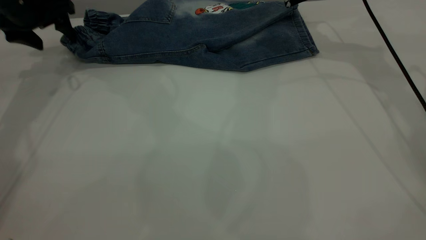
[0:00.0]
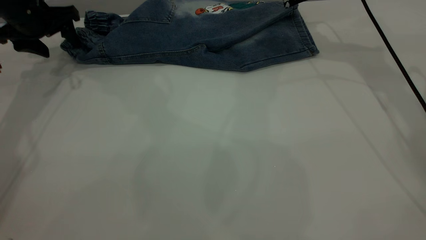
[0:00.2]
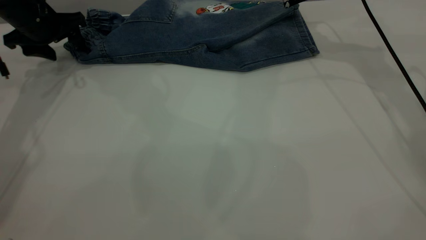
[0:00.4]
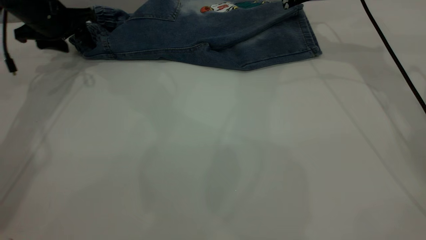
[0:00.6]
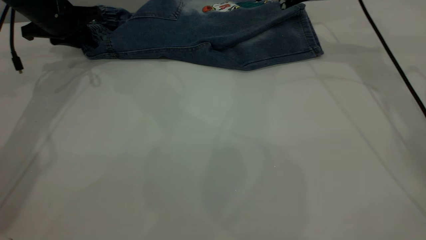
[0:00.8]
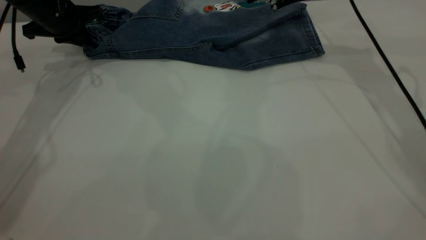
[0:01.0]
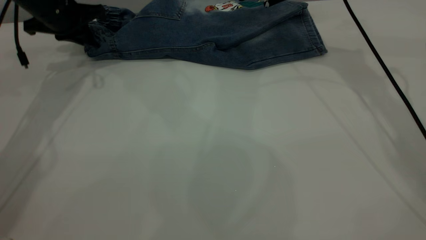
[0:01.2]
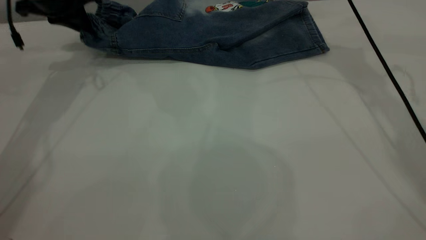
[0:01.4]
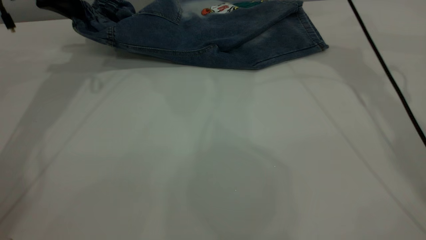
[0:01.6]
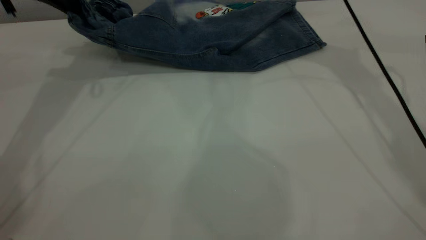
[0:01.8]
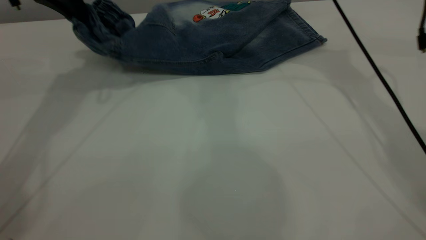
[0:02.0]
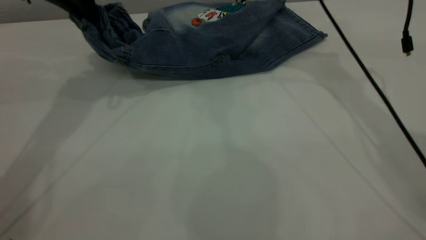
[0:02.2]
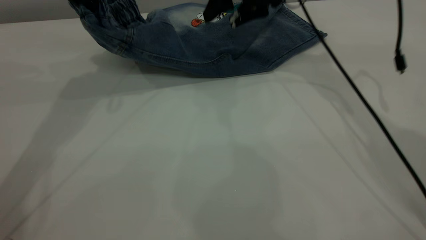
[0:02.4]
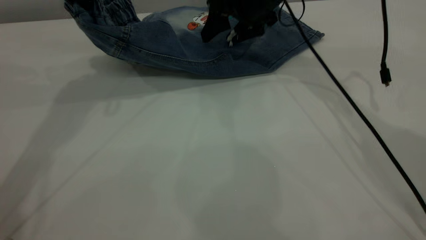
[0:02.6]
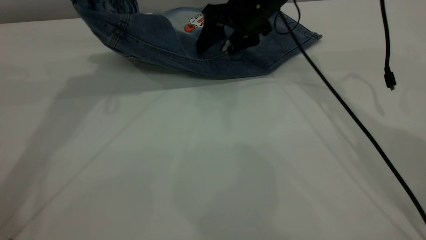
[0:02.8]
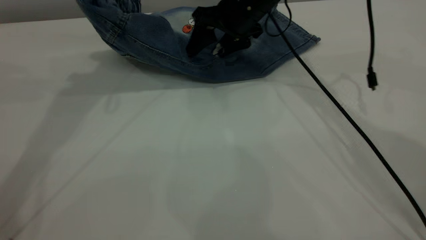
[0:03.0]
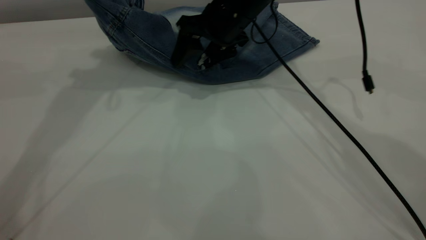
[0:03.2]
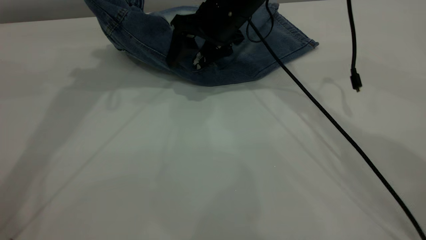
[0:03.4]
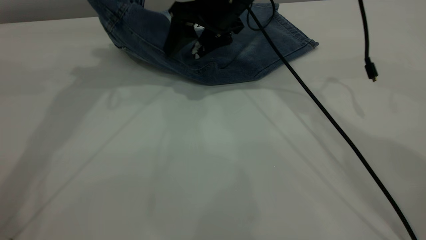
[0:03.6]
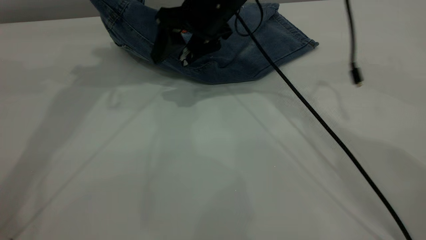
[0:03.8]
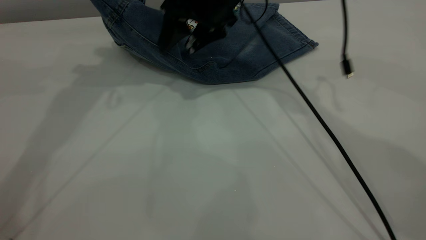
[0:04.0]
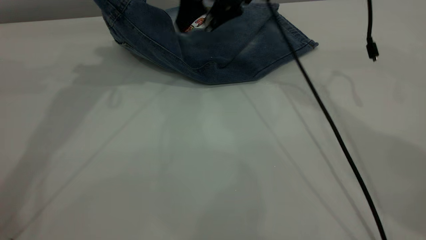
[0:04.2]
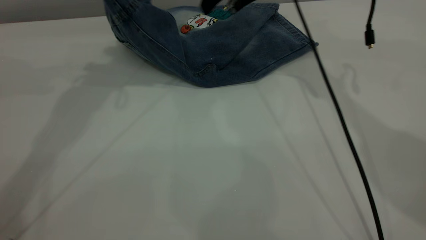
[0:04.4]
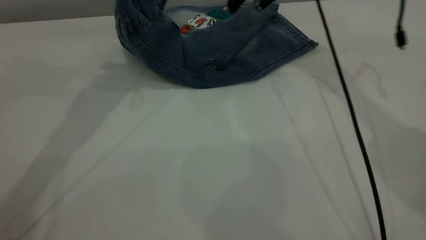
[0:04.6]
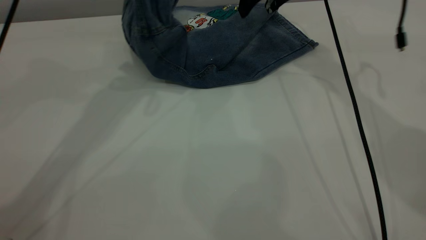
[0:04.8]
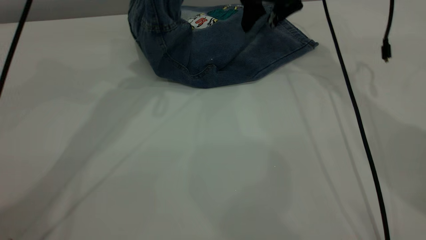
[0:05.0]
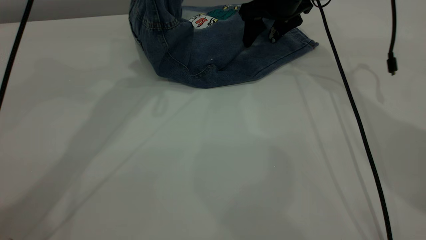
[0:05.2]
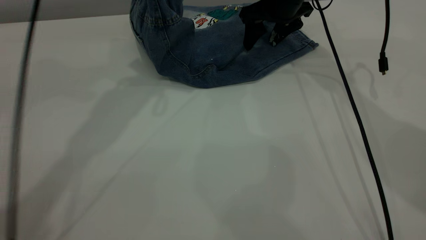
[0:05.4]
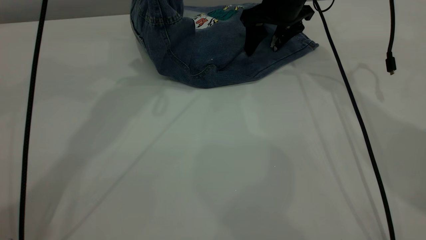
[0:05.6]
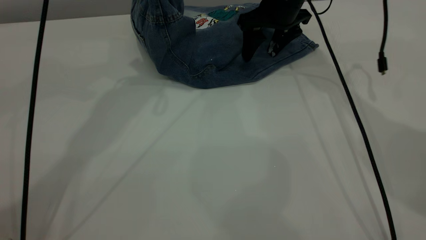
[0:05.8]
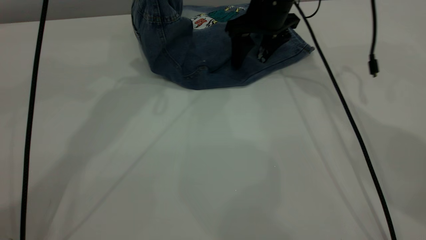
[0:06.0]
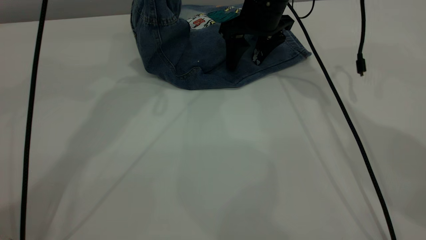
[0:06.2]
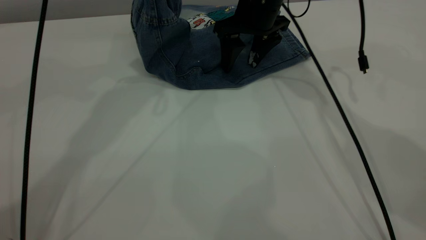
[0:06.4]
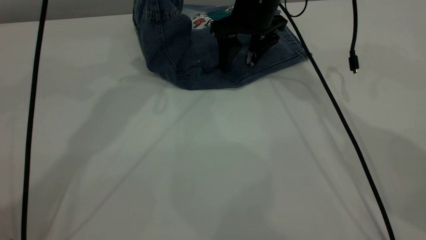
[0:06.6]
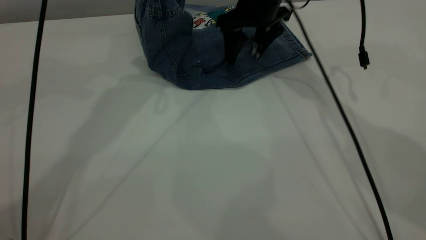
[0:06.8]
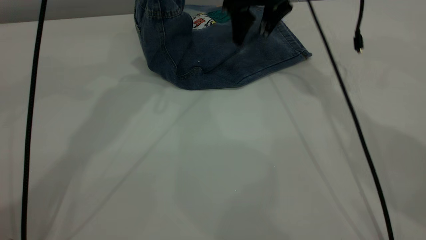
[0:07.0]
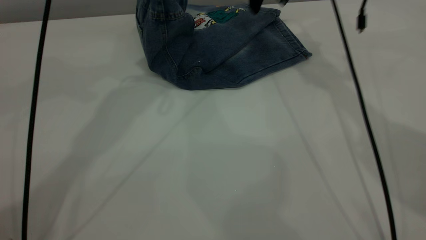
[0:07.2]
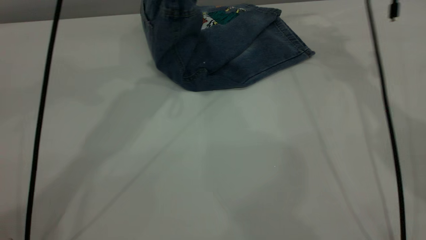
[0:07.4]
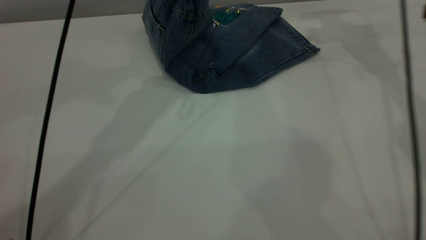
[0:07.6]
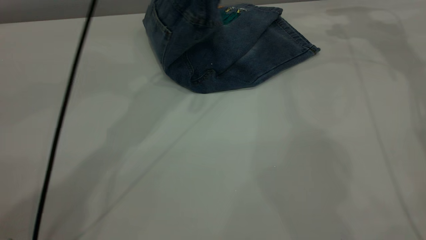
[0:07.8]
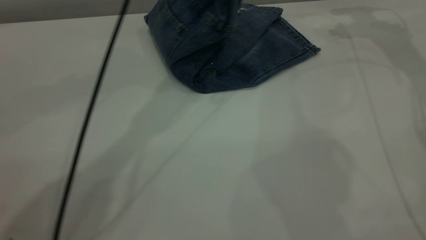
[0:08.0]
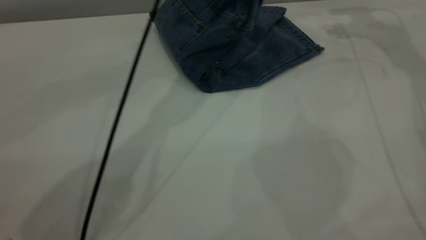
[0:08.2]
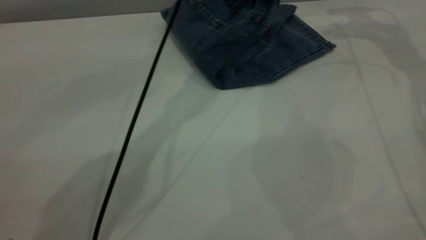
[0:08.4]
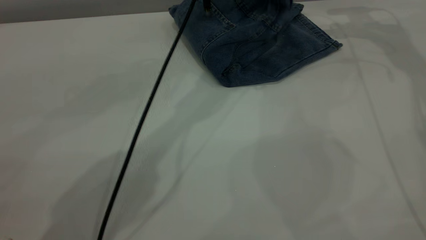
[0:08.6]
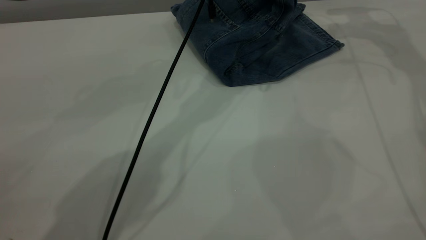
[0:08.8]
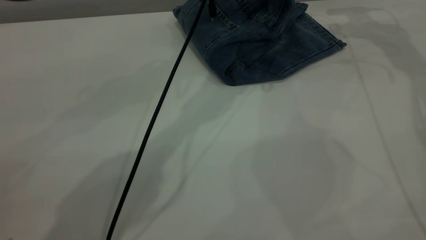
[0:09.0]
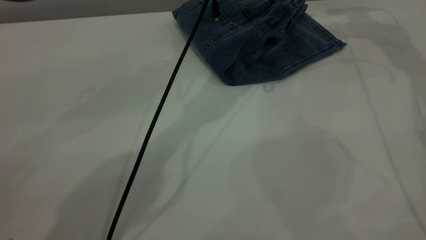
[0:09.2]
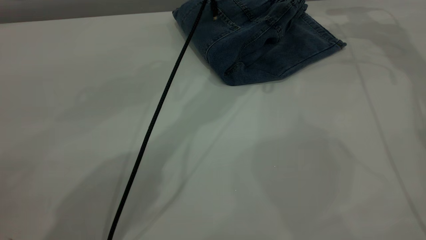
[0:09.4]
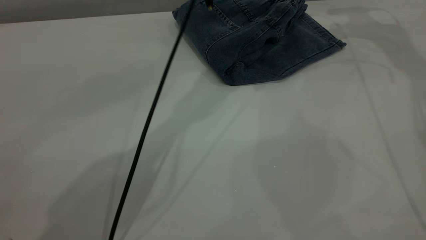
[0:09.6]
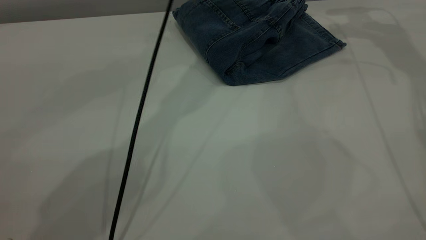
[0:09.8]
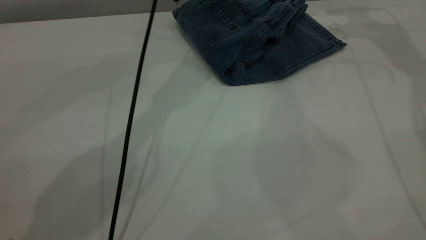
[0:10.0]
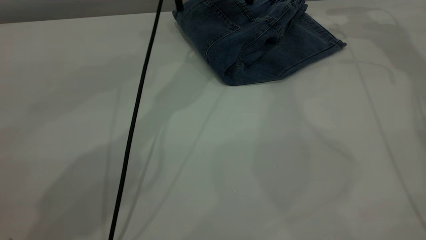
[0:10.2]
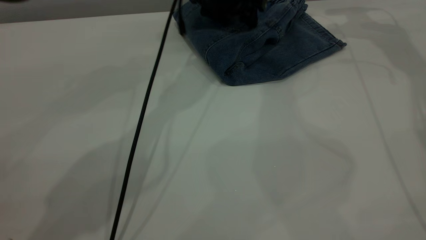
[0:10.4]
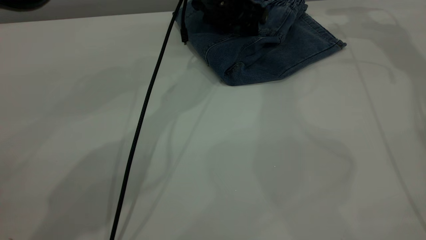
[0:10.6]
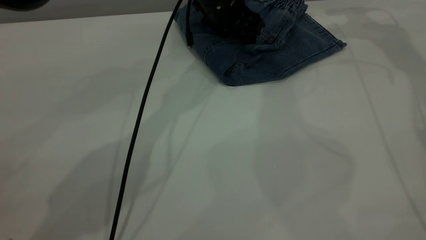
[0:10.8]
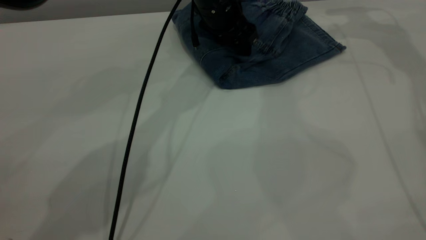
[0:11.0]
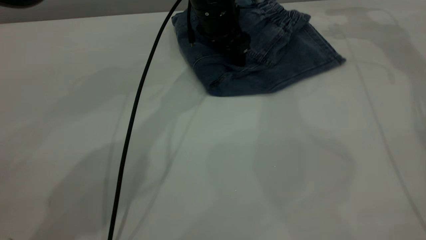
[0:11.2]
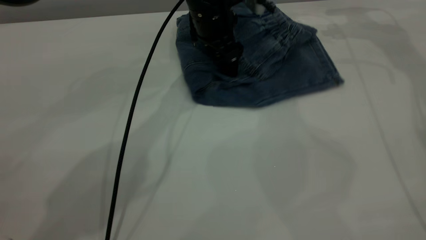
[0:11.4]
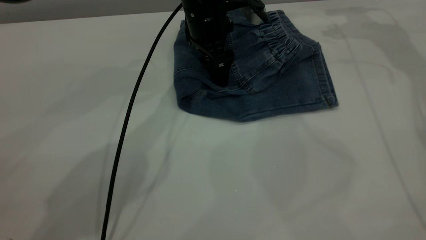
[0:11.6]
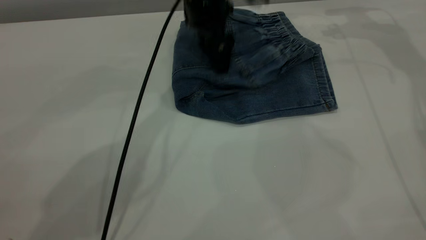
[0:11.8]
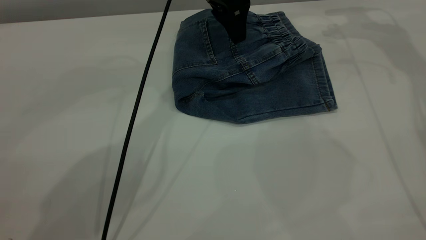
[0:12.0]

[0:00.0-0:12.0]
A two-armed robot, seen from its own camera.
Step, 0:00.0 to 0:09.8: Fold the pants from left to right.
0:00.0 to 0:01.6: The left gripper moves upward and to the right, some 10 cm, and closes.
0:01.6 to 0:03.0: The right gripper moves to the left and downward, some 10 cm; the left gripper shifts some 10 cm upward and to the right.
0:03.0 to 0:04.4: The right gripper heads upward, covering roughly 5 cm.
0:04.4 to 0:06.0: The right gripper is displaced downward by roughly 5 cm. The left gripper goes approximately 5 cm to the right.
0:06.0 to 0:07.6: The right gripper moves to the right and upward, approximately 20 cm.
0:07.6 to 0:09.0: The left gripper moves to the right, downward and forward, approximately 20 cm, and opens its fingers.
0:09.0 to 0:10.4: The left gripper travels to the left by approximately 5 cm, and opens.
0:10.4 to 0:12.0: The left gripper moves upward, approximately 5 cm.

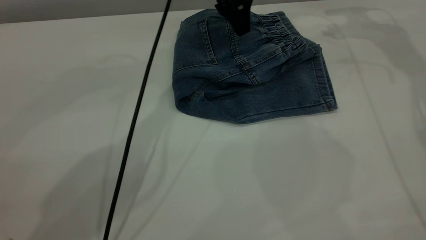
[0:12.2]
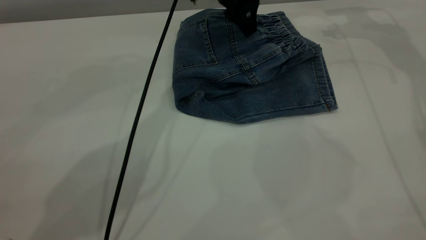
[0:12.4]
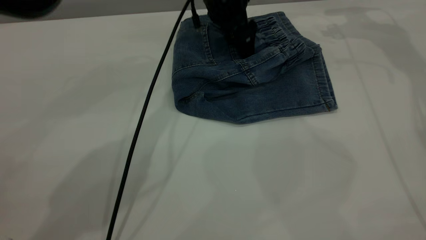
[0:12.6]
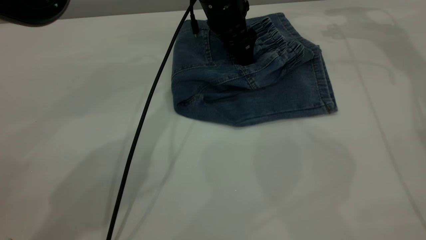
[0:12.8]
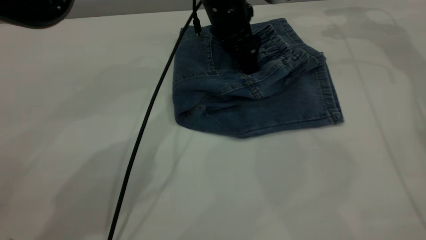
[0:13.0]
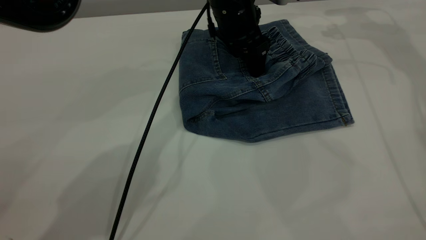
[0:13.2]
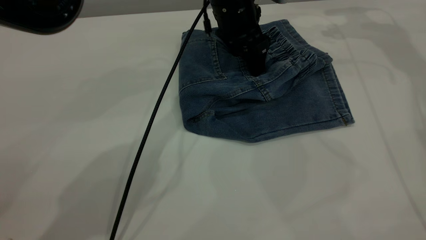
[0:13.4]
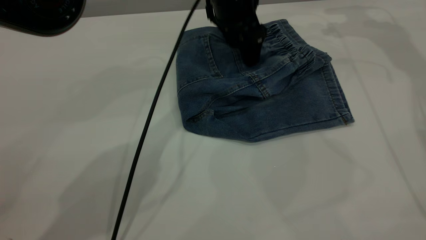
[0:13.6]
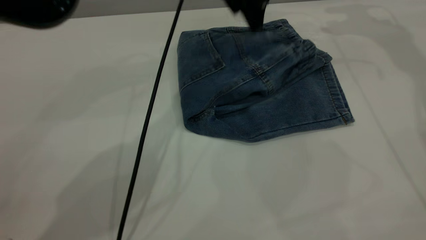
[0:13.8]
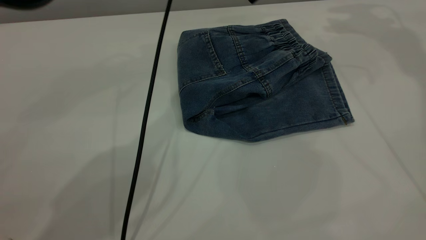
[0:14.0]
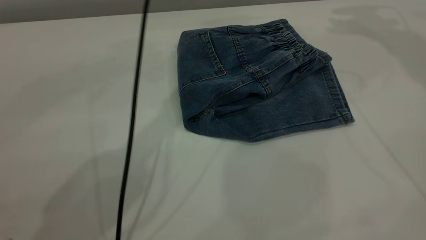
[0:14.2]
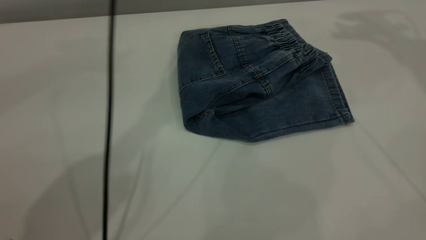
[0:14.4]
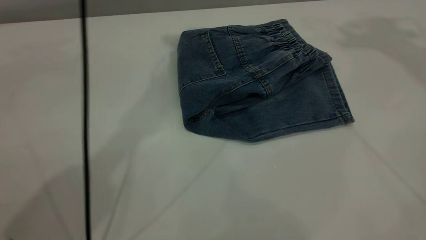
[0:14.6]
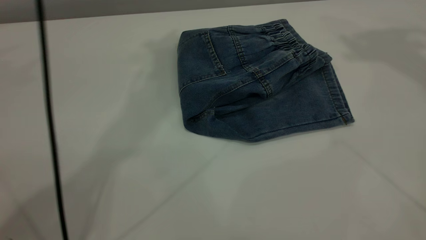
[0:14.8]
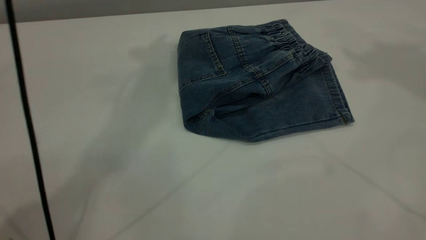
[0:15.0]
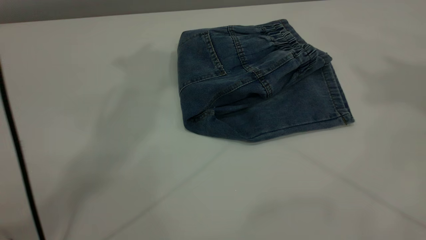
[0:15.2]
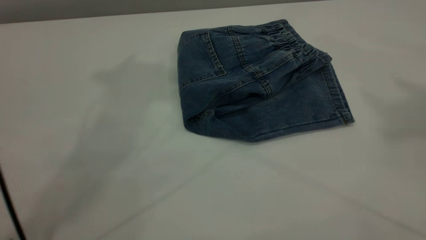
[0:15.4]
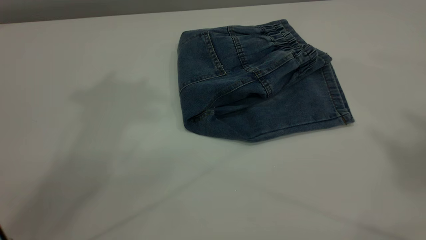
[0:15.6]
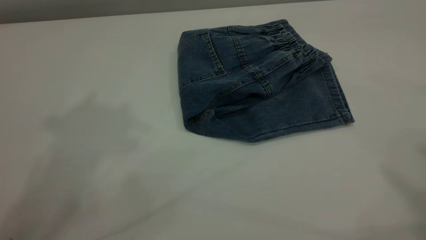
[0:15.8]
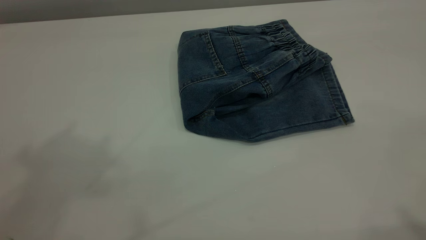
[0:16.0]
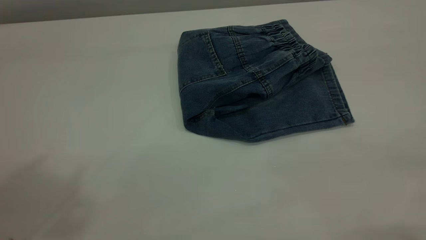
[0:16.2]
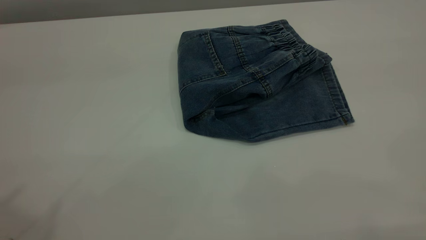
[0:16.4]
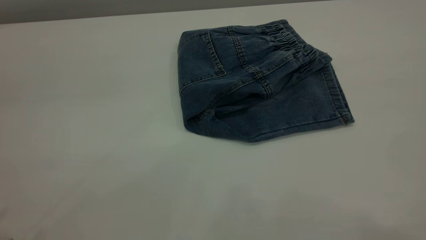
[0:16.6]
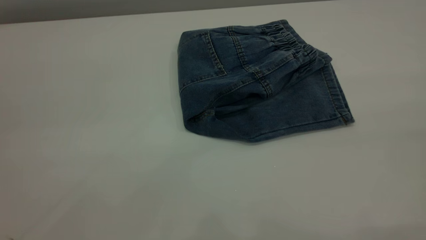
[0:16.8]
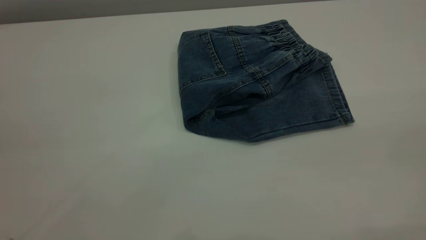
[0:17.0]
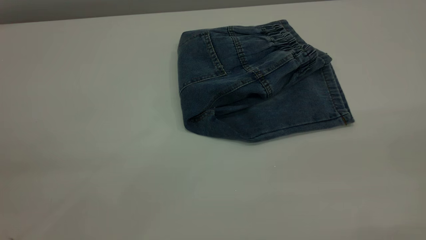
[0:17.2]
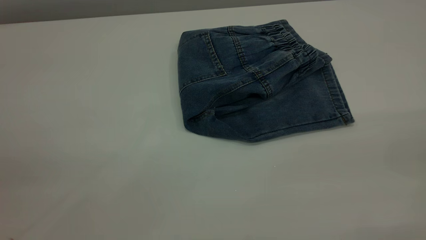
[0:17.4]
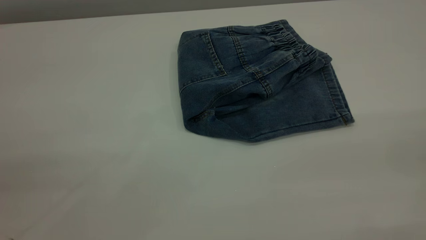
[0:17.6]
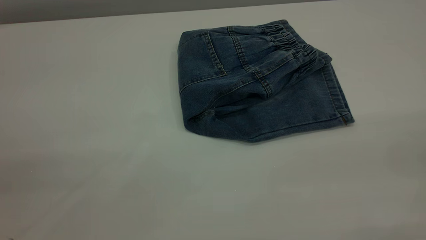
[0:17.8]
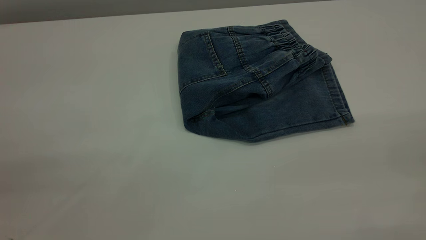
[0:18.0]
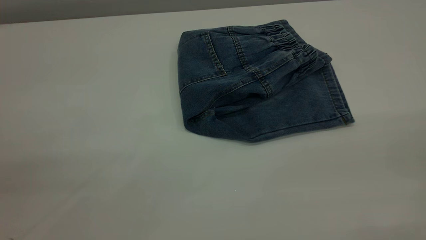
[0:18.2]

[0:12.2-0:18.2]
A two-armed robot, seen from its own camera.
0:12.2 to 0:13.8: The right gripper is displaced upward by roughly 5 cm. Meanwhile the left gripper travels downward and back again, about 5 cm each way.
0:13.8 to 0:15.2: The right gripper moves upward and backward, approximately 40 cm. The left gripper moves upward and to the left, some 35 cm.
0:15.2 to 0:16.6: The left gripper travels backward and to the left by some 30 cm.
